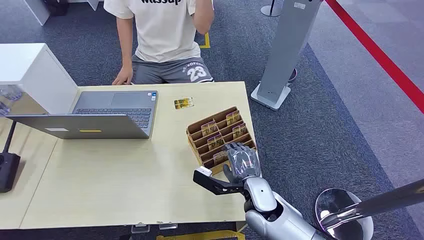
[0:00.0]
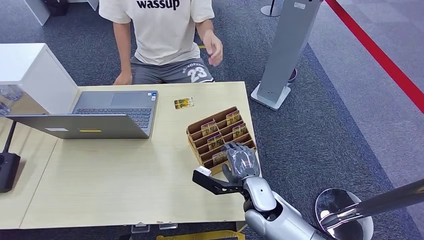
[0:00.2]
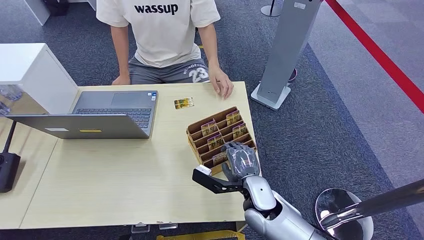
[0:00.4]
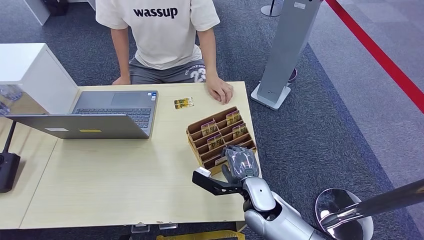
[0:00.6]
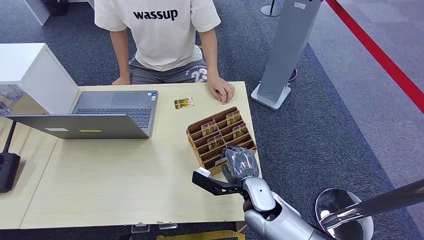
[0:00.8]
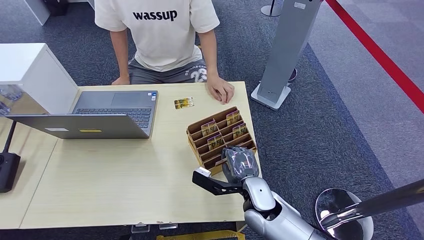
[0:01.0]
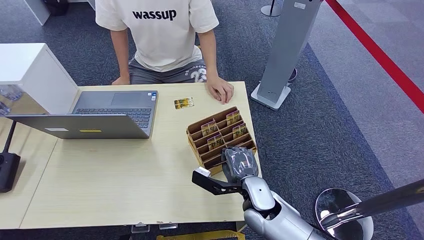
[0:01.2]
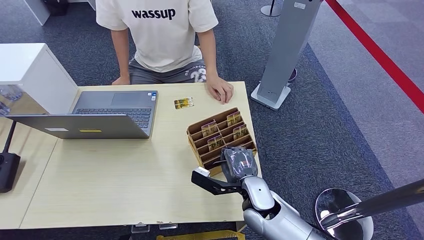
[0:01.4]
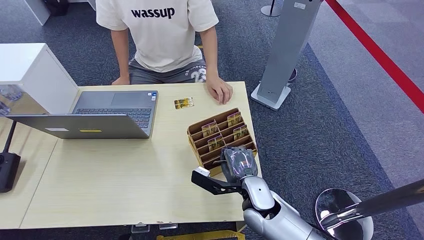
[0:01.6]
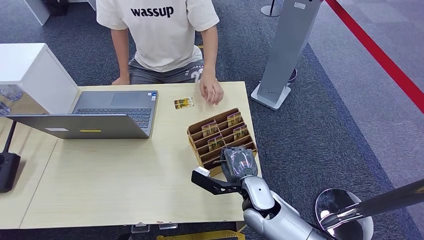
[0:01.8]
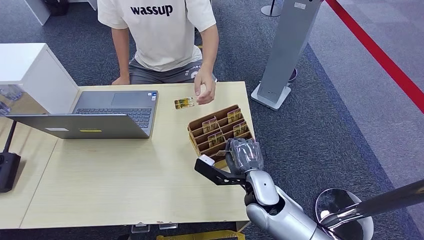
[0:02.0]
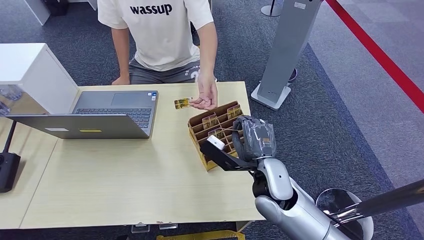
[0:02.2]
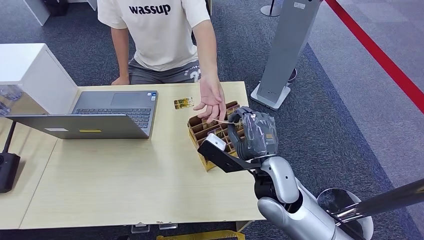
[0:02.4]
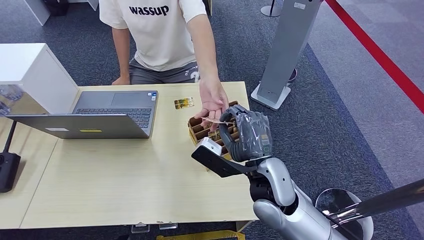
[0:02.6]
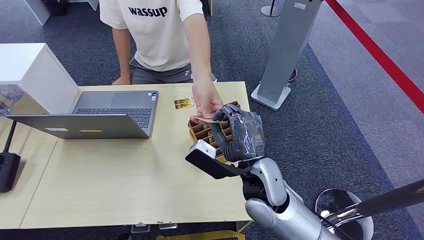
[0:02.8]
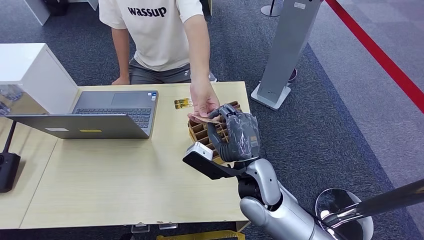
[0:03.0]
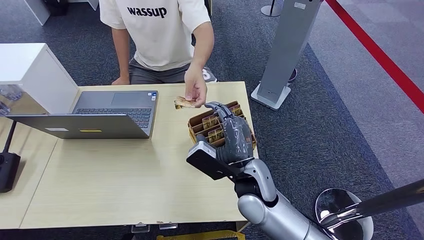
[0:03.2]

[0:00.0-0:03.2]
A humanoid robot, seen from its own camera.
Step, 0:00.0 to 0:01.8: Pick up the key card from the card box.
Step, 0:02.6 to 0:03.2: Hand the key card to the target.
0:01.6 to 0:03.2: The right hand heads upward, covering some 10 cm.
